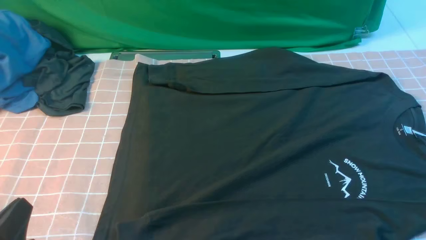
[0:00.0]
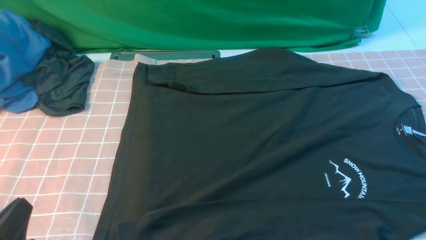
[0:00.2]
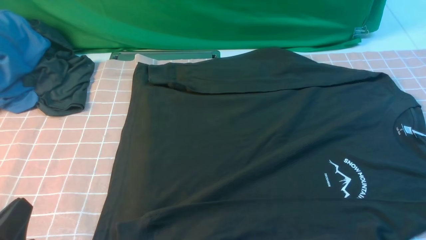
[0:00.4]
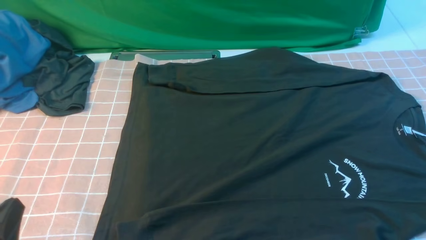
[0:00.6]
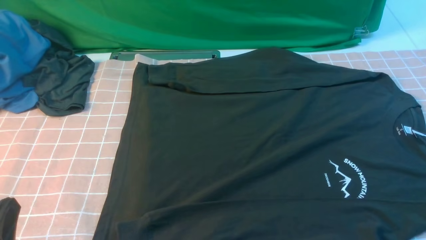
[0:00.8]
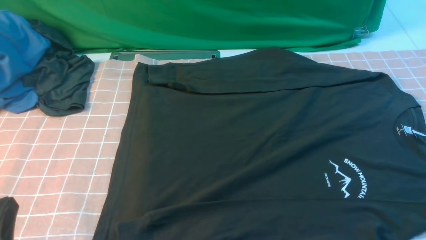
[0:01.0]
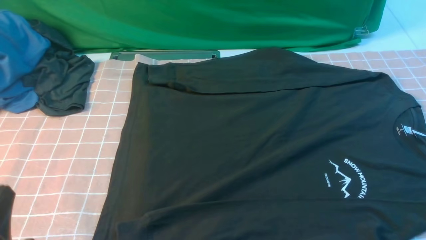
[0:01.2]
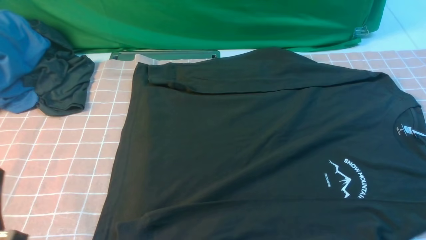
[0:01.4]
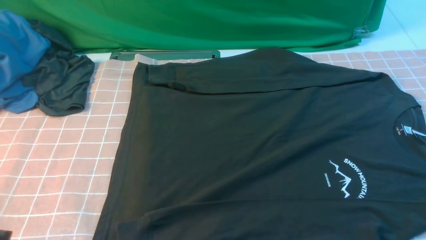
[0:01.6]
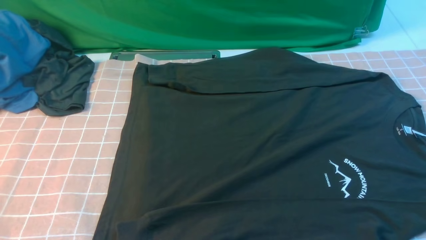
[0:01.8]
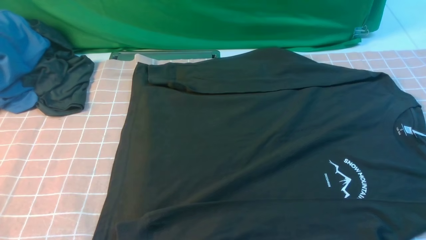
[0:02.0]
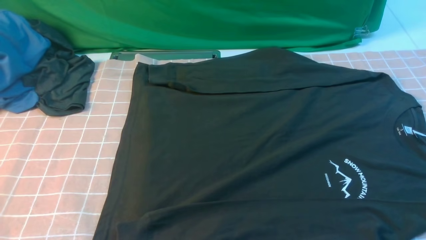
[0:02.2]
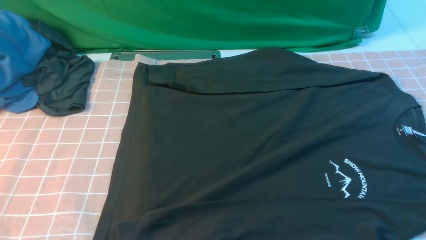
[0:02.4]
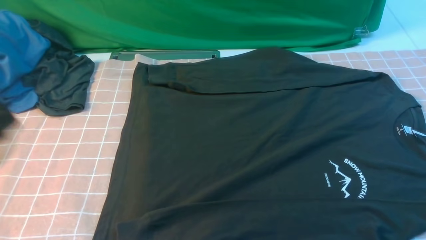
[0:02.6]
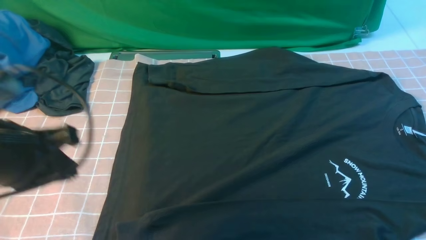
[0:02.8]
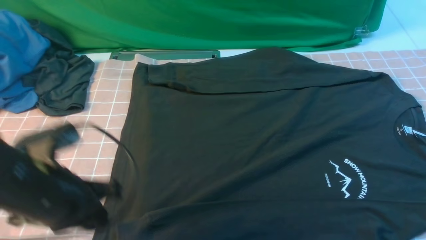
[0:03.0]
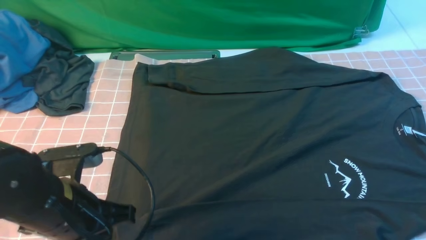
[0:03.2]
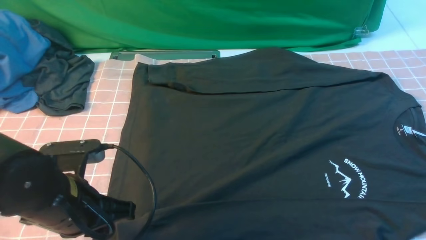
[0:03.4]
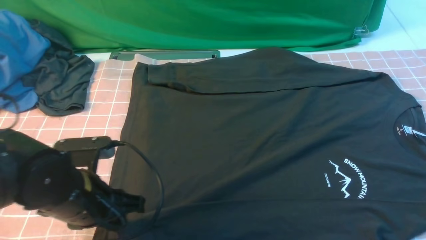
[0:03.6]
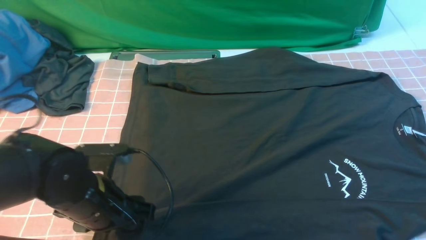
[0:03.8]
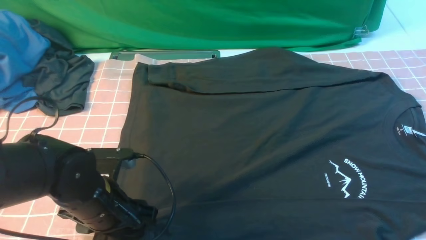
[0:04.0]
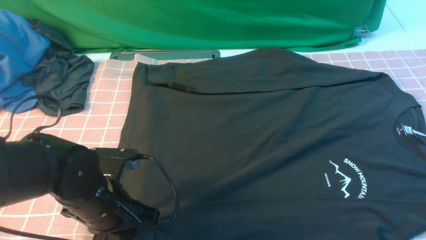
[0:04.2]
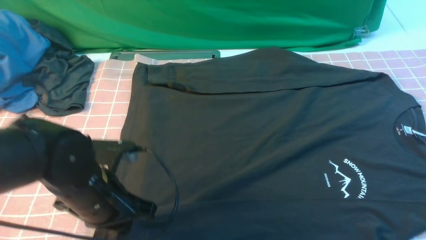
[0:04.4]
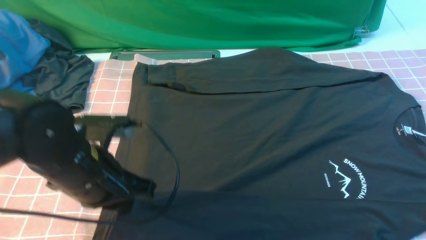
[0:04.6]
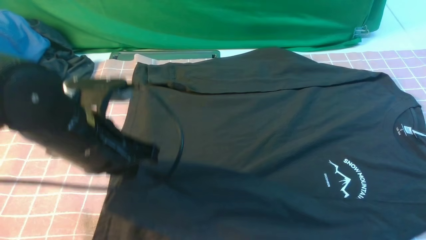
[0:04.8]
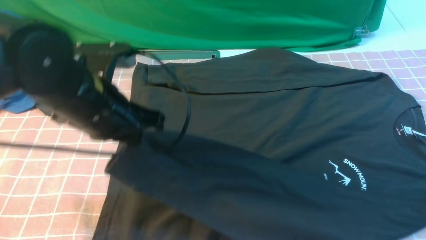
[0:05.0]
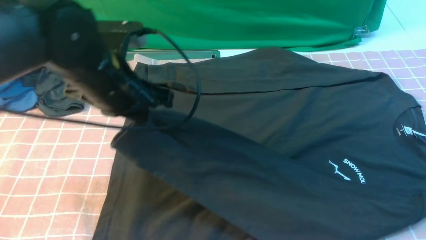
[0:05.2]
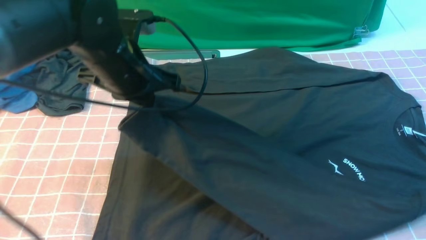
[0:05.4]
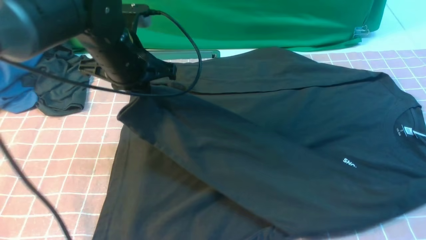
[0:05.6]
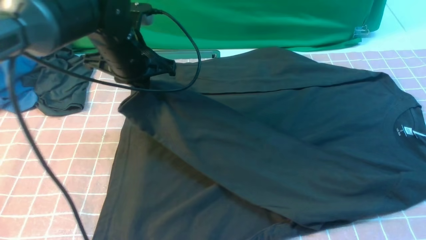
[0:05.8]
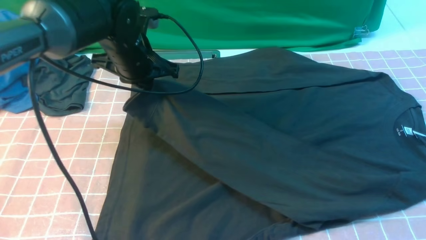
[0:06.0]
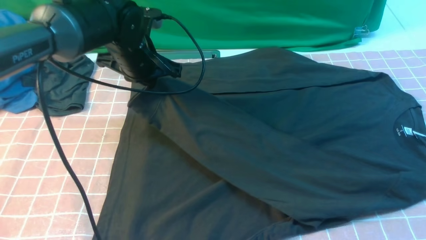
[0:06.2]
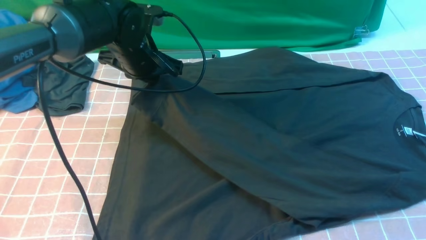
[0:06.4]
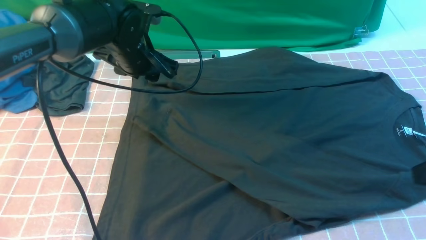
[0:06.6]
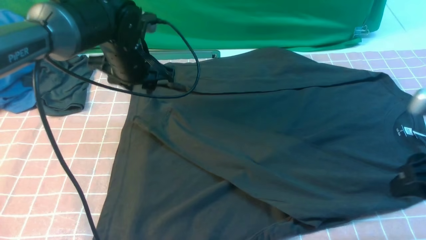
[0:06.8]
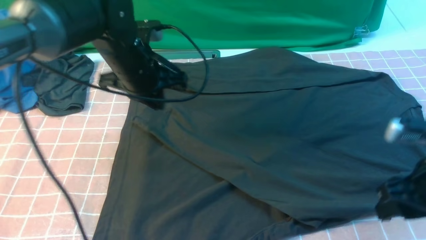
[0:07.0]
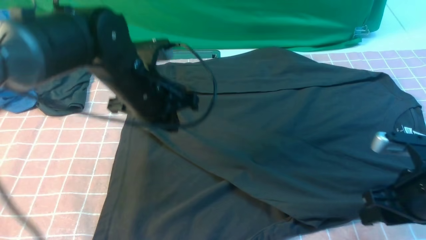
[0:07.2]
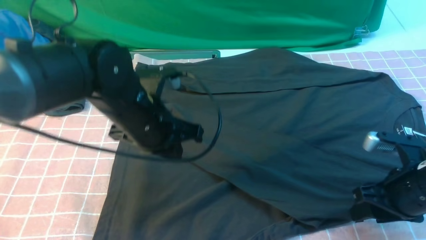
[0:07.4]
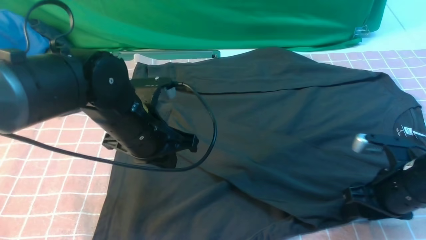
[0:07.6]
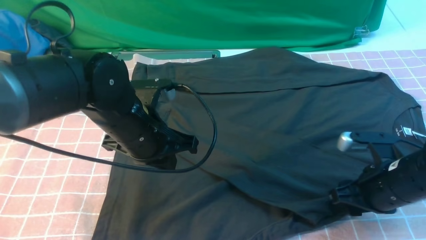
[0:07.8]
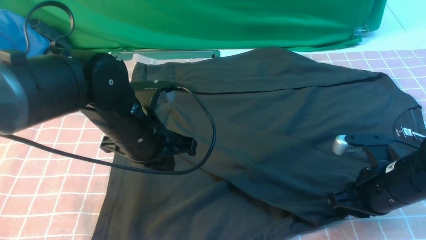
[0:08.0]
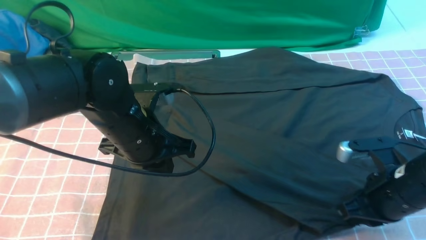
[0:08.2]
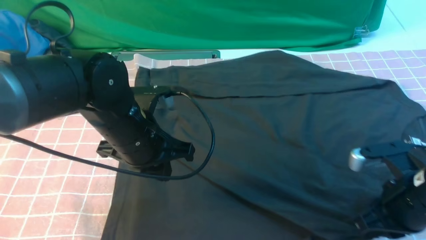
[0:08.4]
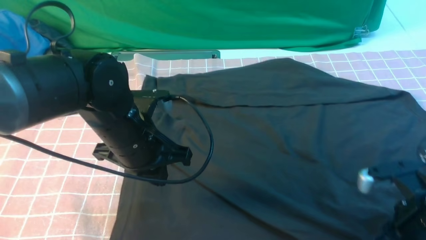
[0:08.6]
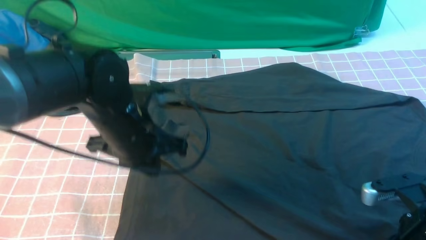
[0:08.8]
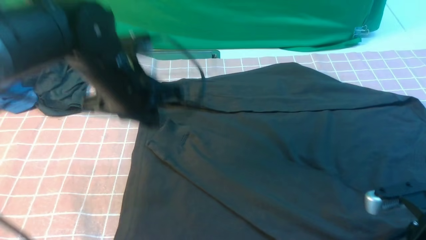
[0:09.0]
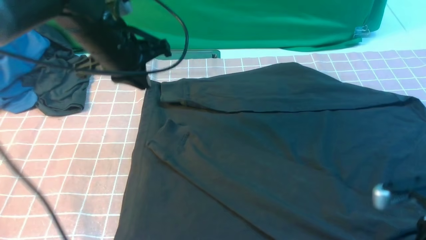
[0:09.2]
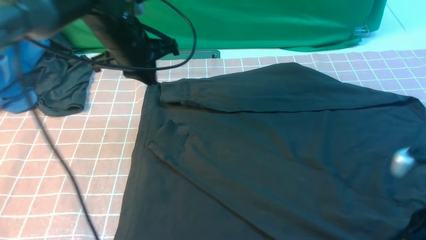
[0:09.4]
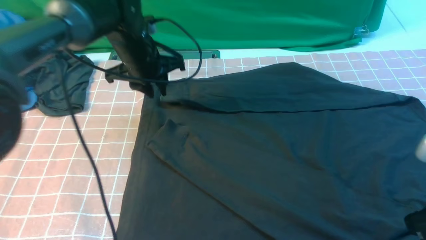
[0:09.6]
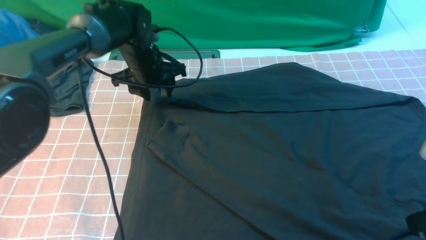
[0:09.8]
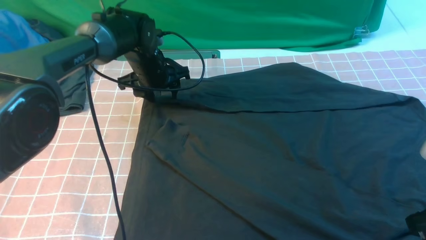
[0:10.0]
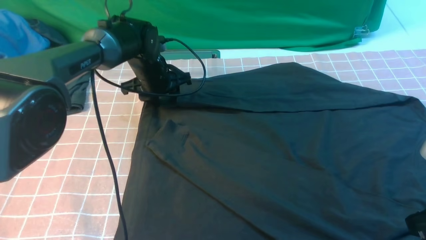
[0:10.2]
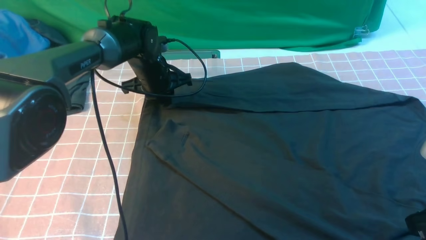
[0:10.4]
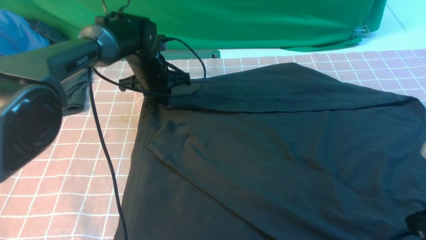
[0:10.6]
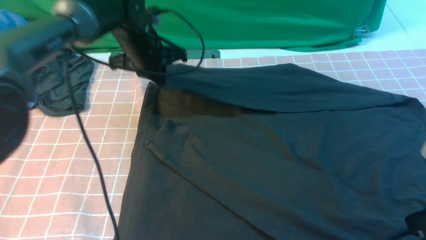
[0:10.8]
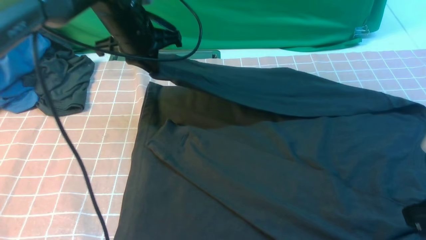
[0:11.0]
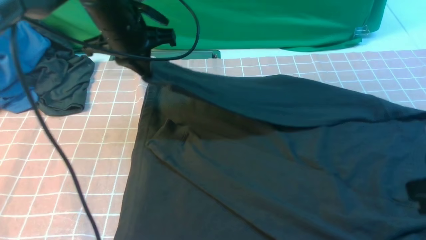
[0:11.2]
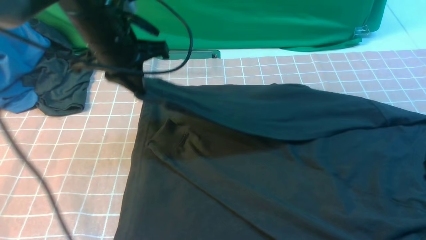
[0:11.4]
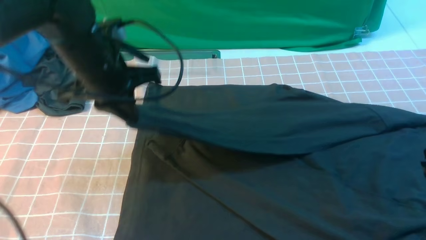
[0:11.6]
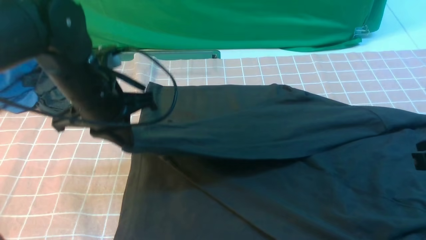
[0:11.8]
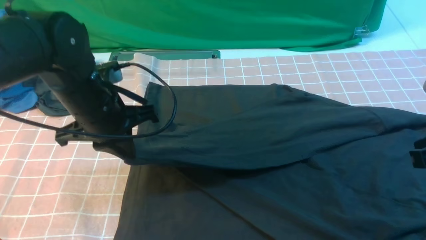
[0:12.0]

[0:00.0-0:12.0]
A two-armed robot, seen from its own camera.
Step, 0:00.0 to 0:04.2: use the left arm to clamp the cuff closest to it.
Step, 0:04.4 to 0:06.6: use the left arm to drag and place the cuff at the centered position on the left edge of the fabric.
Step, 0:06.8 to 0:10.6: use the left arm to clamp the cuff farthest from it.
0:01.6 to 0:03.0: The left gripper goes roughly 15 cm forward.
0:03.0 to 0:04.4: The left gripper shifts by about 5 cm, and opens, then closes once more.
0:04.4 to 0:06.0: The left gripper moves forward, some 20 cm.
0:06.0 to 0:07.6: The right gripper travels downward and forward by approximately 20 cm, and opens its fingers; the left gripper goes some 10 cm backward, and opens, then closes once more.
0:07.6 to 0:09.0: The right gripper shifts approximately 5 cm backward, and closes, then opens again, while the left gripper ends up approximately 5 cm from where it was.
0:09.0 to 0:10.4: The right gripper heads upward, covering about 10 cm. The left gripper moves forward and downward, some 20 cm, and opens, then closes once more.
0:10.4 to 0:12.0: The right gripper heads forward, covering roughly 5 cm, while the left gripper shifts roughly 20 cm backward and upward.

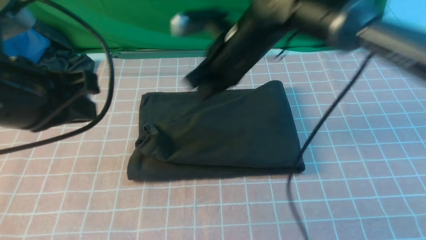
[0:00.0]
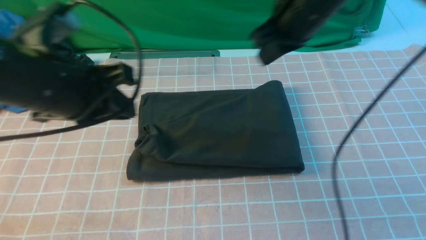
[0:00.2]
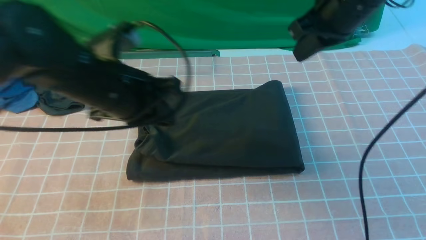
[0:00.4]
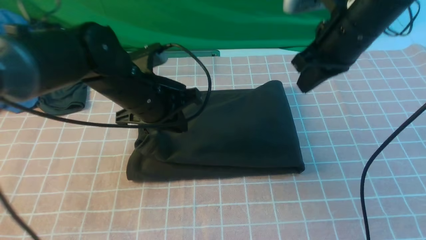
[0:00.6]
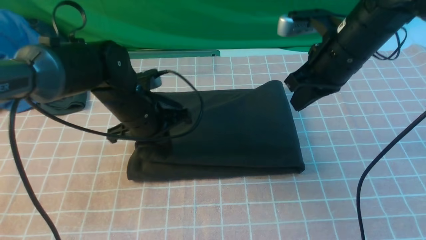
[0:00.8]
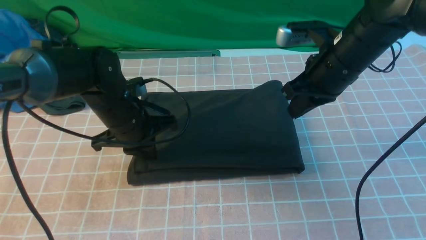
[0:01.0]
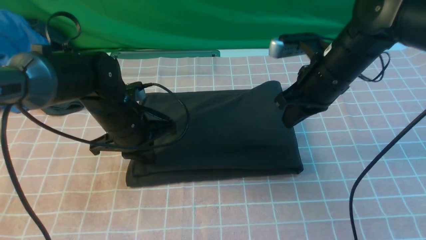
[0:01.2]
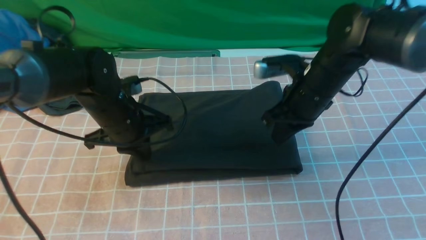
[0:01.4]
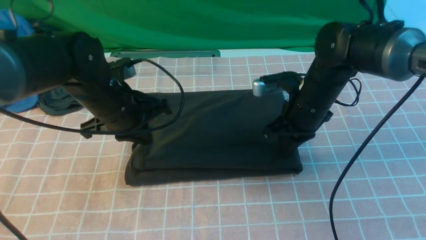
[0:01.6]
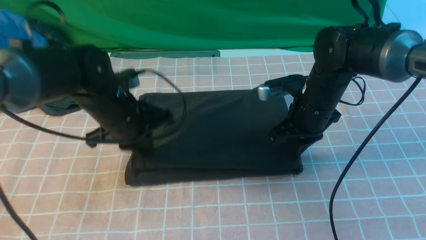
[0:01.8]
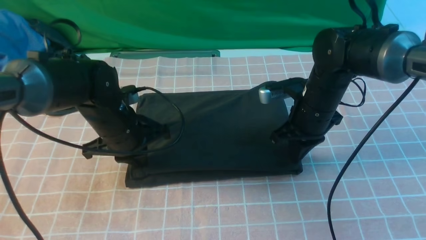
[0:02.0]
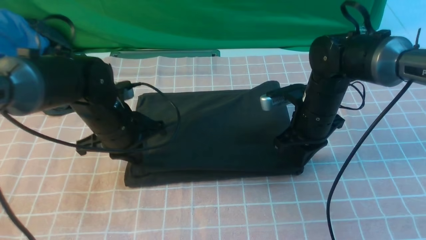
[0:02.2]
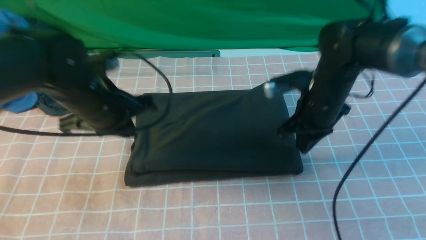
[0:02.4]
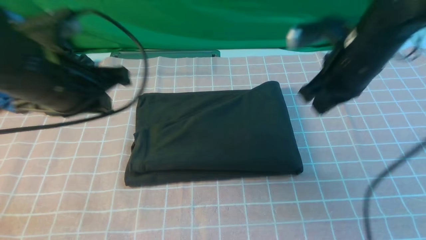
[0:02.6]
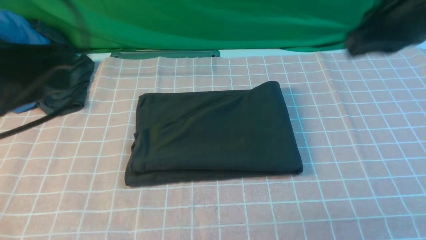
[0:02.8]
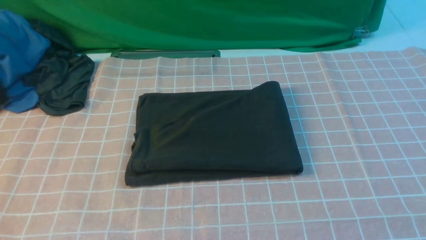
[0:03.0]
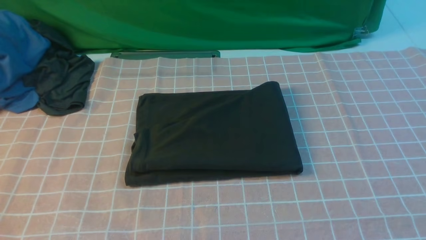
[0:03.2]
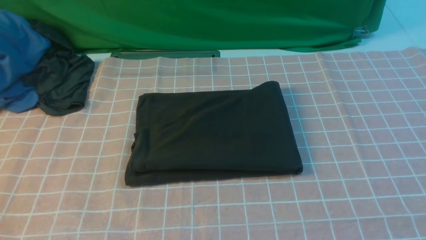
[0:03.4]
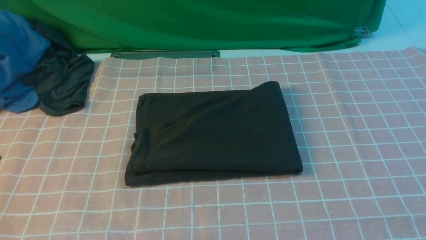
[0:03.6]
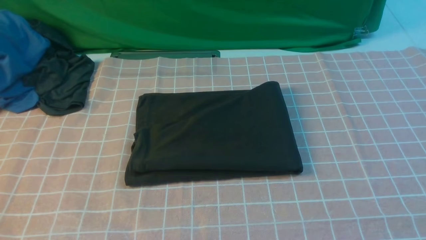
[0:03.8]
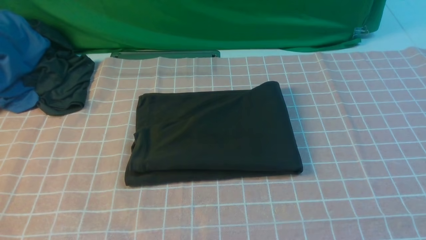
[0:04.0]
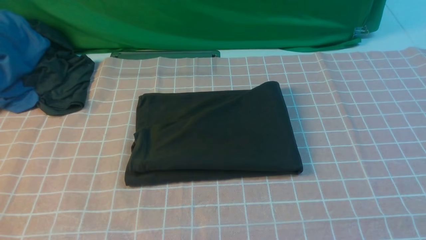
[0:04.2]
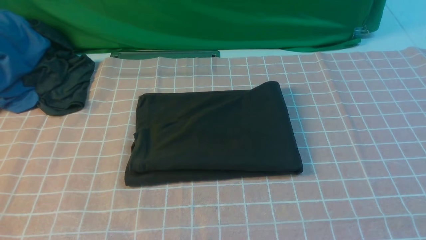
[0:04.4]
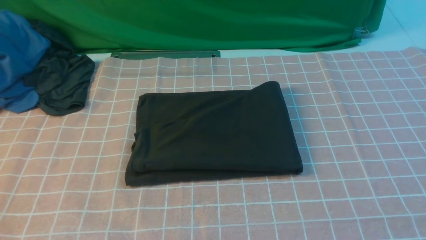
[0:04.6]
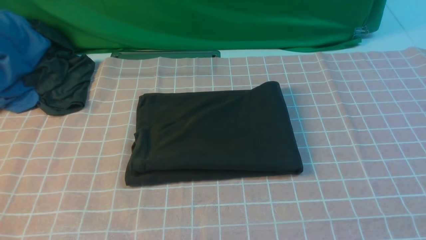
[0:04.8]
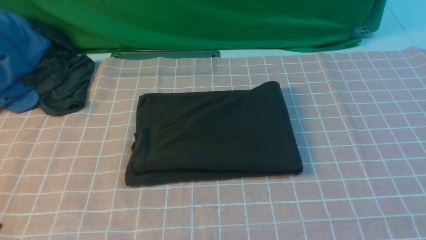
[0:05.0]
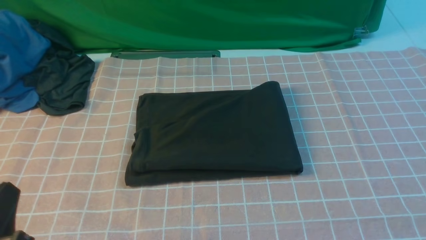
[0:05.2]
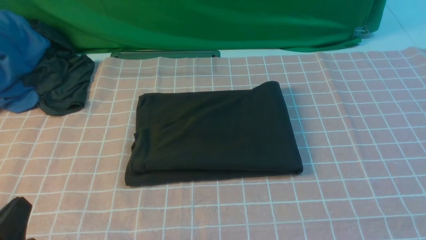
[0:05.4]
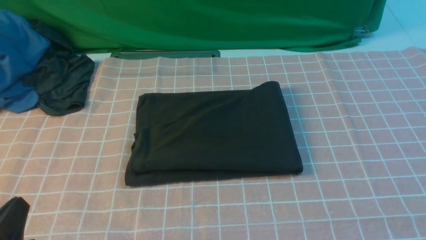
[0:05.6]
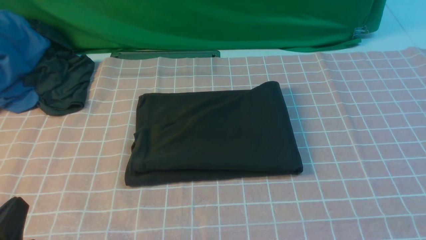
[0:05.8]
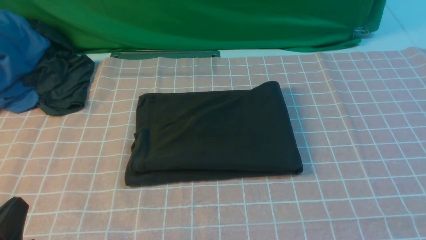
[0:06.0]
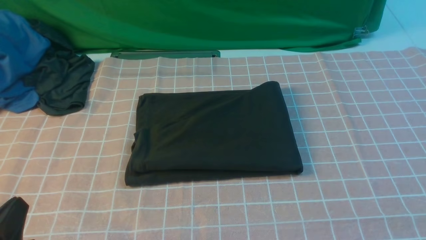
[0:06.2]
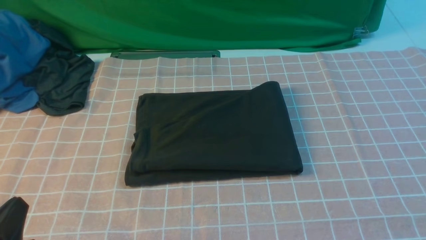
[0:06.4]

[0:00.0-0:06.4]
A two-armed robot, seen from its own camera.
0:00.0 to 0:01.6: The right gripper moves downward and to the right, approximately 15 cm; the left gripper heads downward and forward, covering about 20 cm.
0:01.6 to 0:03.2: The right gripper moves backward, upward and to the right, approximately 40 cm; the left gripper travels backward and upward by approximately 35 cm.
0:04.8 to 0:06.4: The left gripper goes about 10 cm downward.
